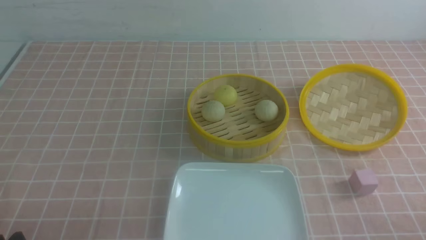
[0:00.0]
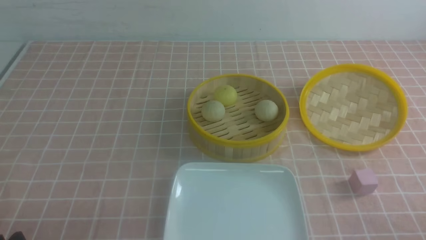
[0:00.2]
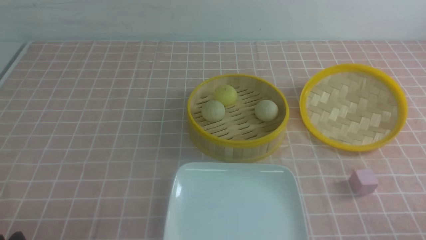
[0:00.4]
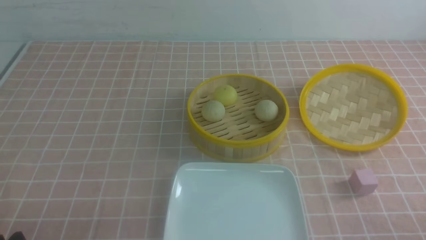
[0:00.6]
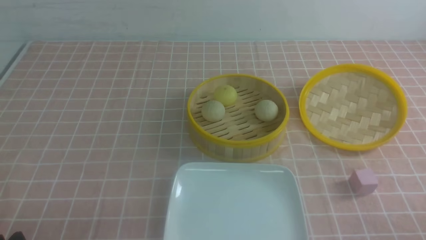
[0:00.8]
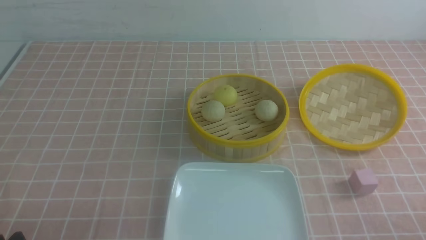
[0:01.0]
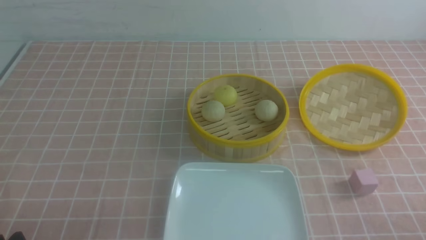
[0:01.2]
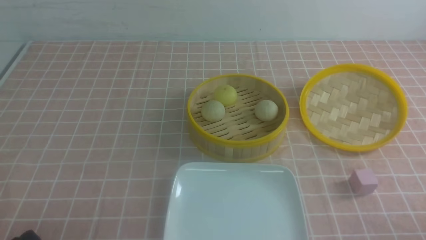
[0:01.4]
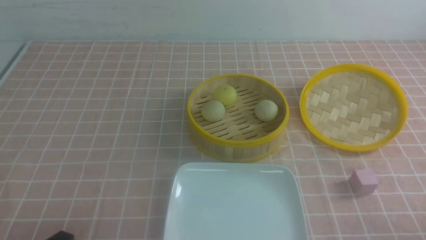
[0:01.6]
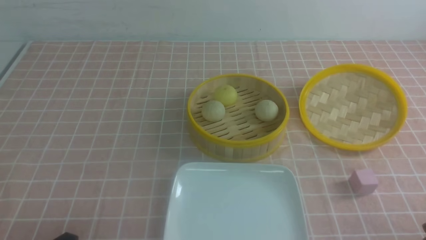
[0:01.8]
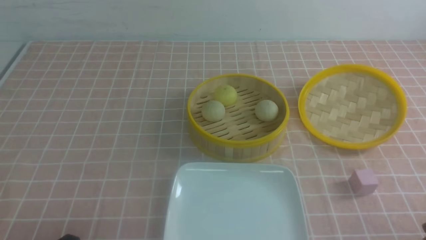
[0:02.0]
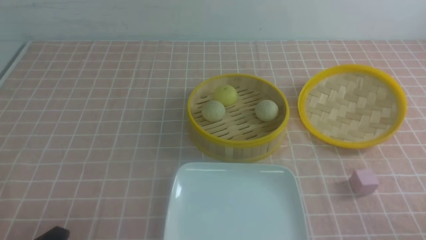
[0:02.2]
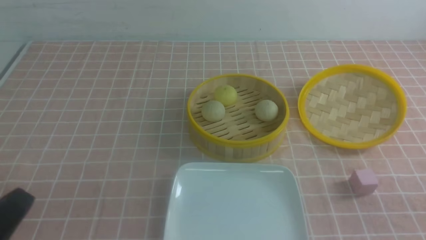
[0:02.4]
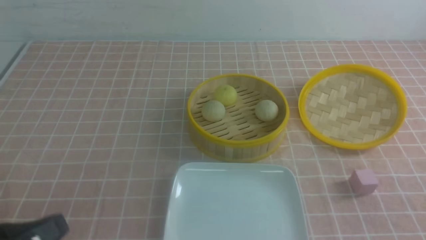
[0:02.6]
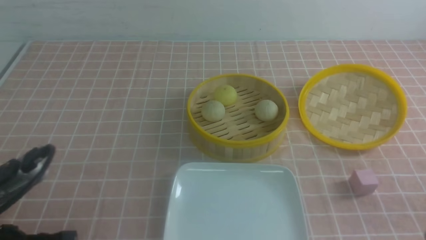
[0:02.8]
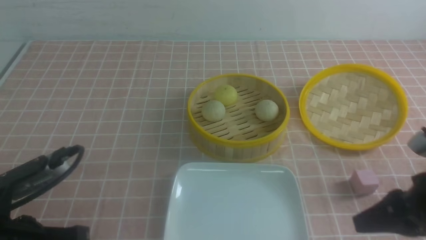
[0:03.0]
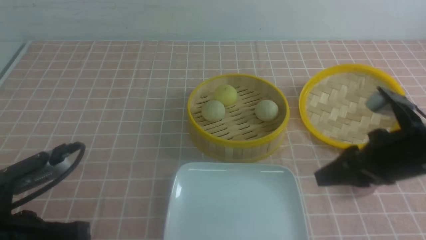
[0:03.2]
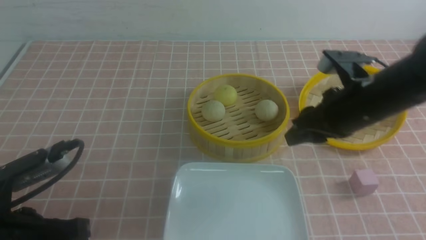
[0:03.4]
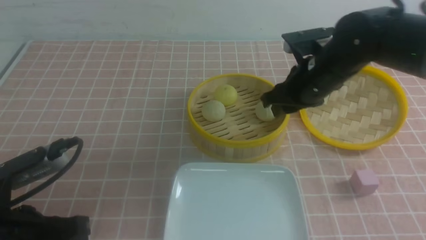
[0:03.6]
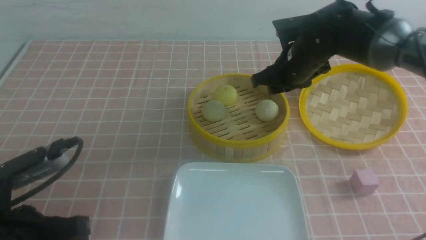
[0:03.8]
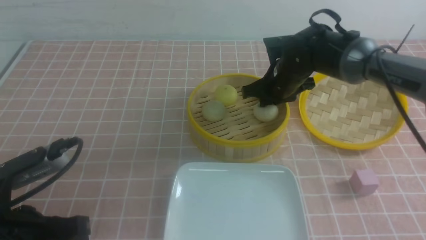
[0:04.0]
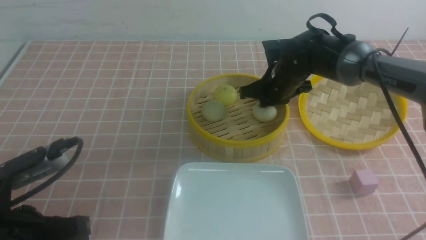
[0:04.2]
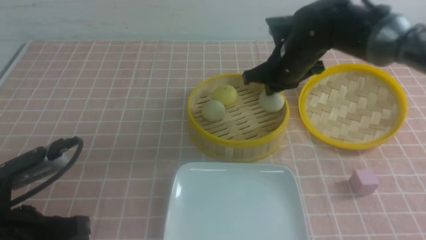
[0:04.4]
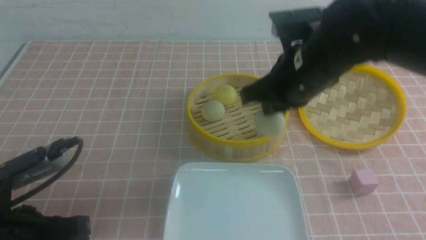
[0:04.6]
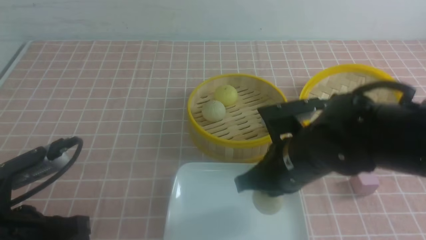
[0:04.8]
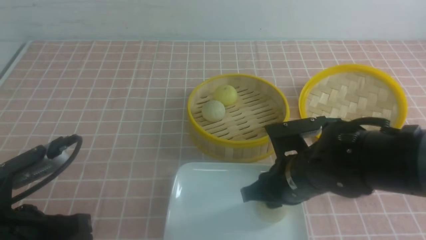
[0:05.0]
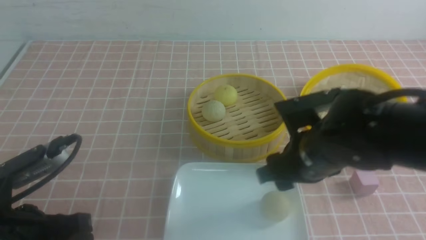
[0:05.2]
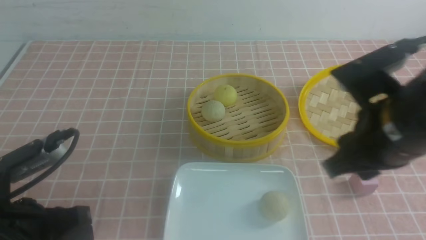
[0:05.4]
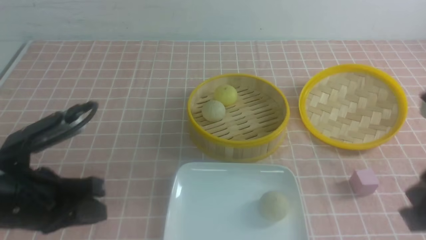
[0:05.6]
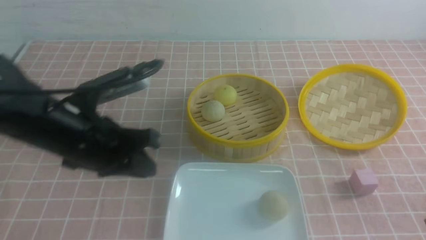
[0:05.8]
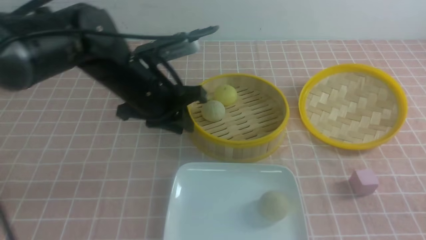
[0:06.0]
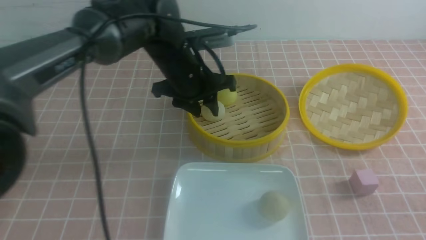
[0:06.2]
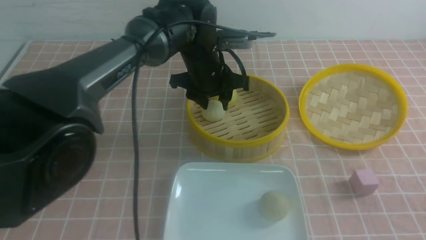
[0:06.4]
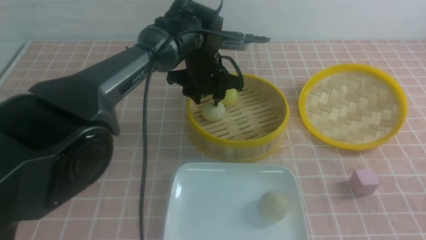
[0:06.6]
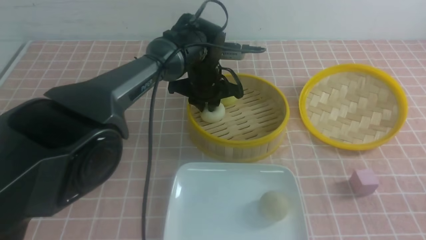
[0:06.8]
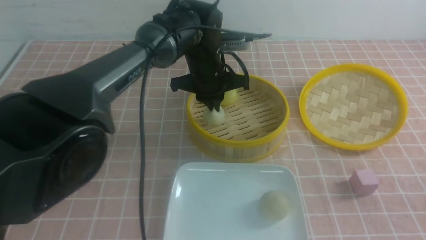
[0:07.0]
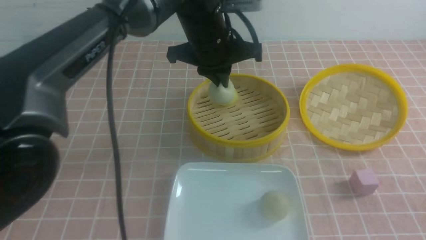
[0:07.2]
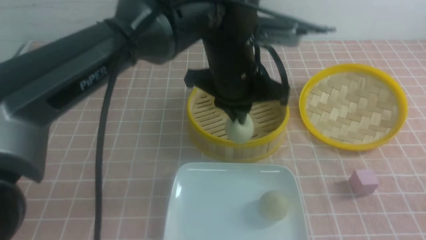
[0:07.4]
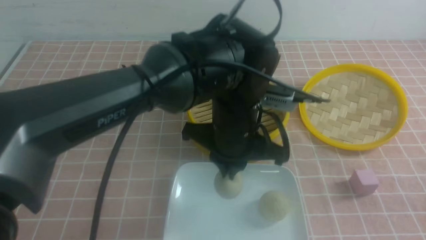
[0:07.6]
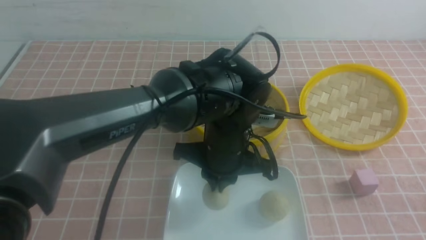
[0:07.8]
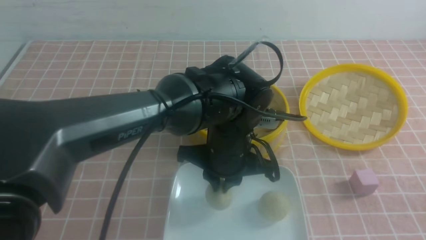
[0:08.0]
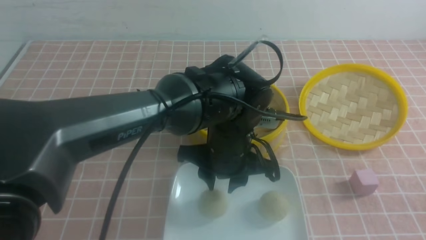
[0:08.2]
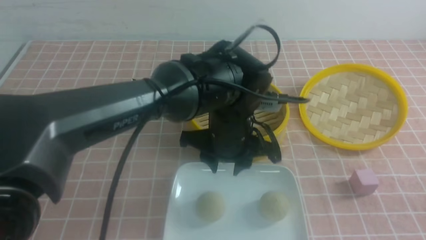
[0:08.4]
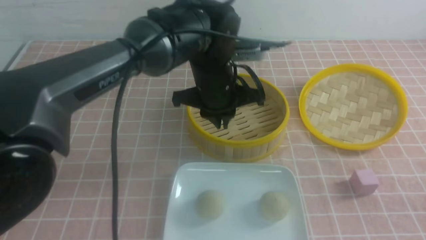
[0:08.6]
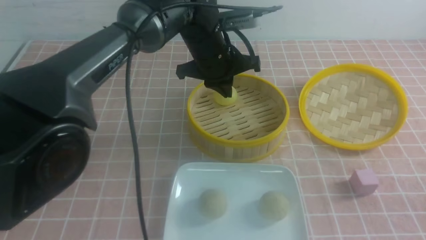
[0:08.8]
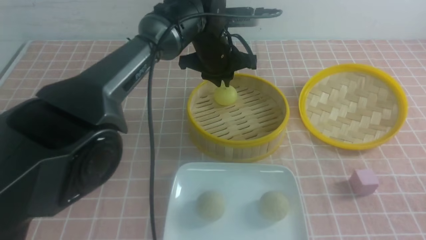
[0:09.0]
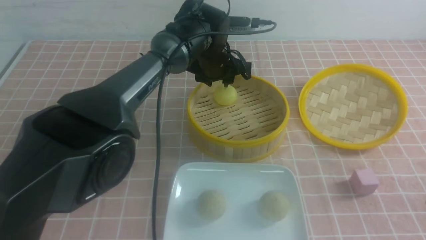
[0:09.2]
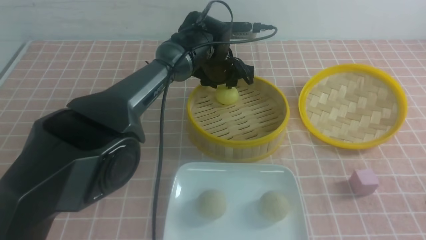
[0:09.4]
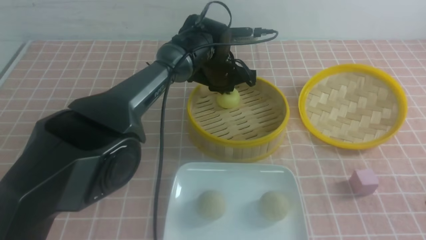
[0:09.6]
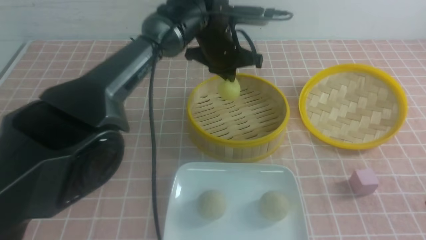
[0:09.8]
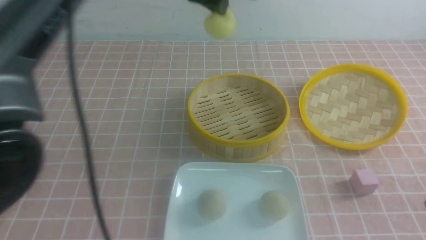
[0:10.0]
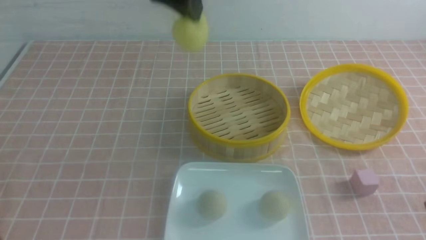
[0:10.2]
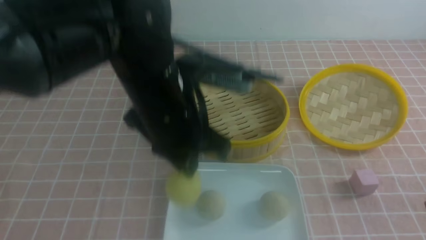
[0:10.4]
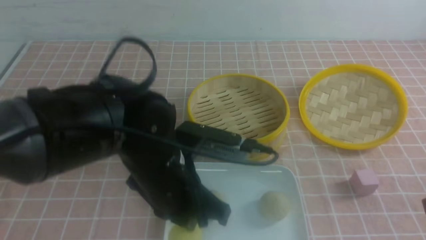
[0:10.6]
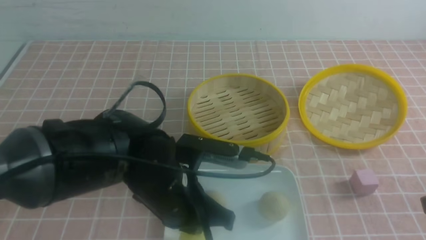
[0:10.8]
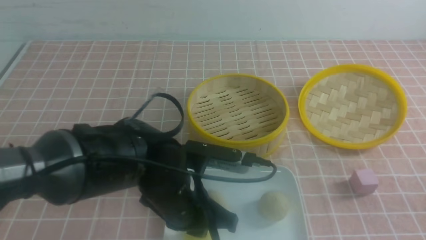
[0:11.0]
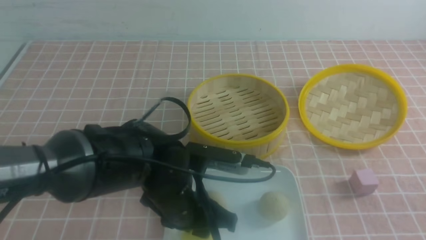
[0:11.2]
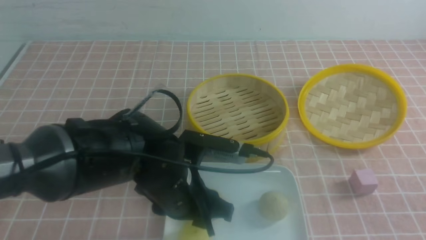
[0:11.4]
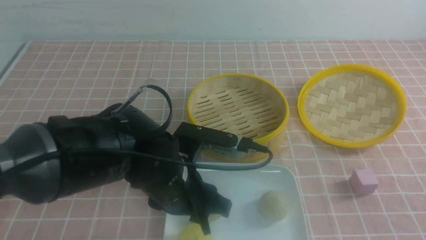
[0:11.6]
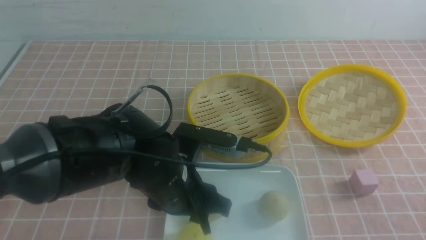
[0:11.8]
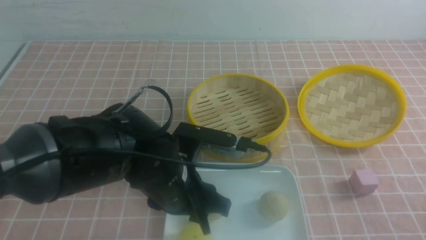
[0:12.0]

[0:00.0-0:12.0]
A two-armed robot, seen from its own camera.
Step, 0:00.0 to 0:04.2: use the right arm to grab the steamed stuffed bun that is closest to it.
Step, 0:04.4 to 0:05.2: use the right arm to put the steamed stuffed bun into the plate.
Step, 0:05.4 to 0:06.8: use the left arm to grab the steamed stuffed bun that is closest to it.
Step, 0:07.0 to 0:08.0: use the left arm to put the steamed stuffed bun into the plate.
Step, 0:08.2 to 0:09.6: use the left arm to grab the steamed stuffed bun that is closest to it.
Step, 0:09.8 to 0:11.4: use the left arm to put the steamed stuffed bun into the plate.
0:01.6 to 0:03.0: The left gripper heads forward and upward, covering some 10 cm, and closes up; the right gripper travels forward and upward by about 15 cm, and closes its fingers.
0:03.0 to 0:04.4: The right gripper is displaced forward and to the left by roughly 25 cm, and opens, then closes again.
0:04.4 to 0:06.0: The right gripper moves backward and to the right, approximately 35 cm, and opens, then closes once more. The left gripper goes approximately 25 cm forward and to the right, and opens its fingers.
0:06.0 to 0:07.6: The left gripper moves to the right, some 10 cm, reaches approximately 10 cm forward, then returns, and closes, while the right gripper opens.
0:07.6 to 0:09.0: The left gripper heads forward, covering roughly 15 cm, and opens.
0:09.0 to 0:10.4: The left gripper goes about 20 cm backward, and closes up.
0:10.4 to 0:12.0: The left gripper is displaced downward by some 10 cm, and opens. Meanwhile the right gripper travels backward by about 5 cm, and closes up.

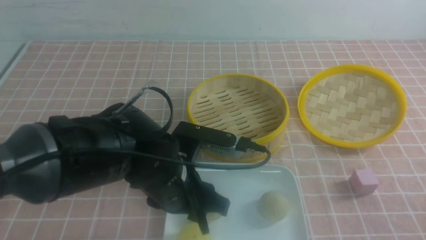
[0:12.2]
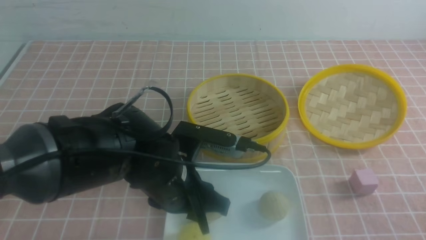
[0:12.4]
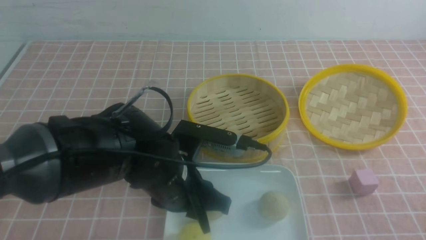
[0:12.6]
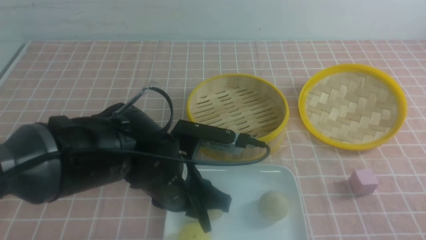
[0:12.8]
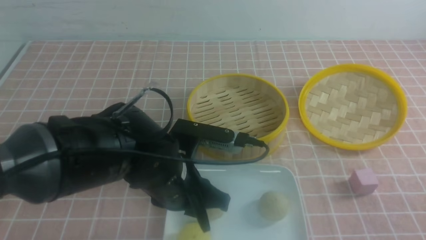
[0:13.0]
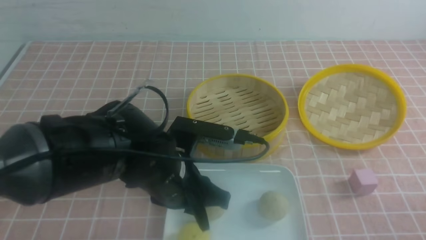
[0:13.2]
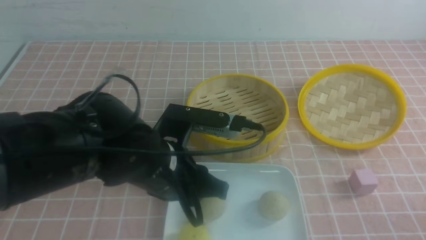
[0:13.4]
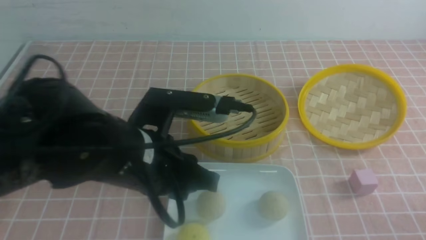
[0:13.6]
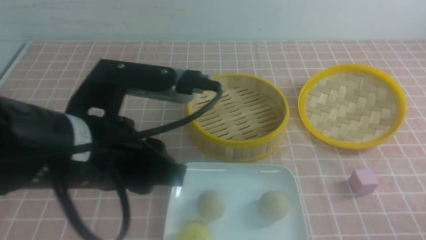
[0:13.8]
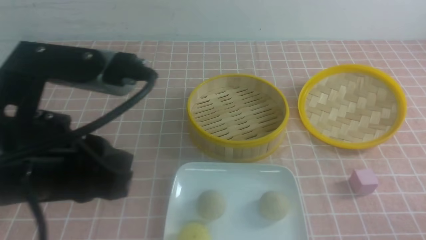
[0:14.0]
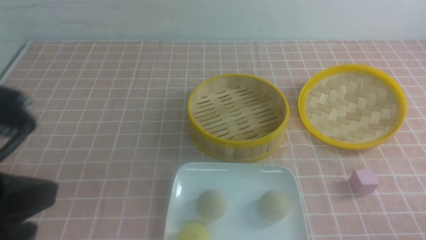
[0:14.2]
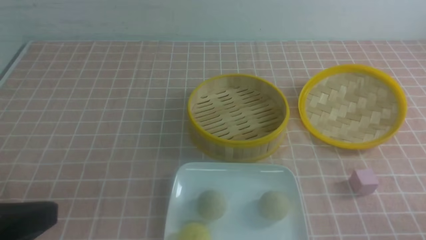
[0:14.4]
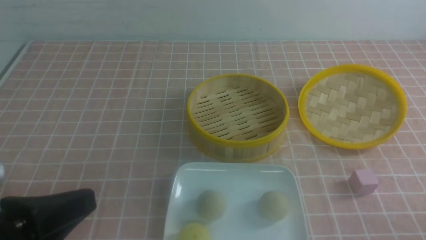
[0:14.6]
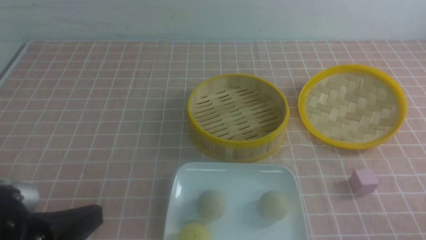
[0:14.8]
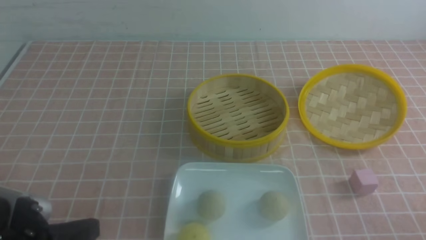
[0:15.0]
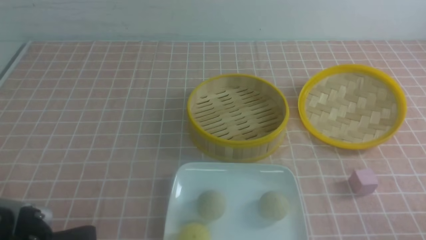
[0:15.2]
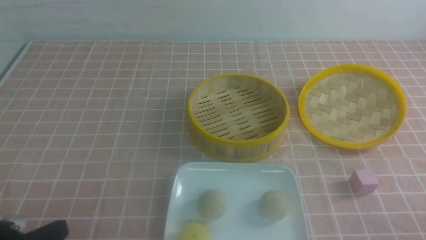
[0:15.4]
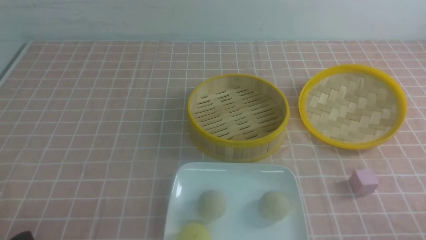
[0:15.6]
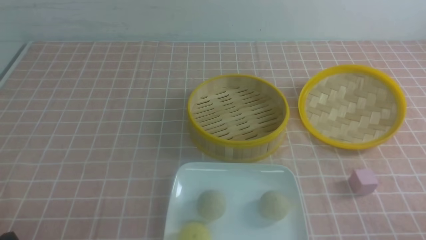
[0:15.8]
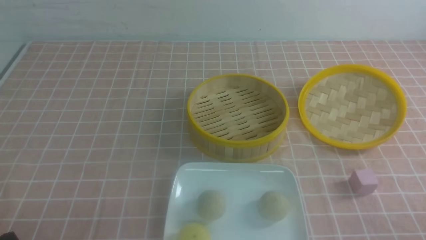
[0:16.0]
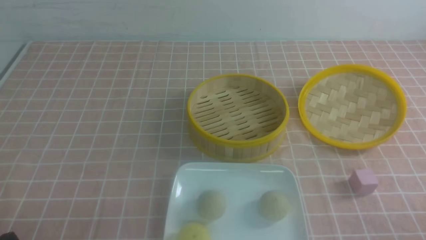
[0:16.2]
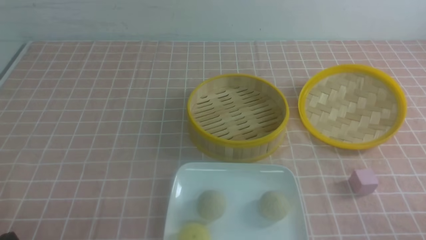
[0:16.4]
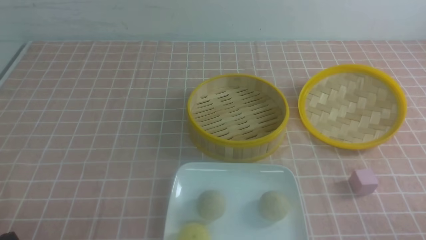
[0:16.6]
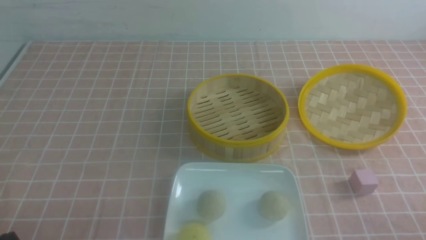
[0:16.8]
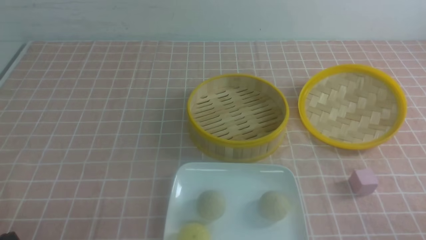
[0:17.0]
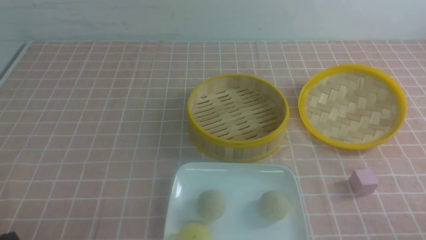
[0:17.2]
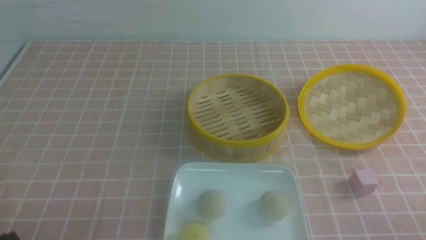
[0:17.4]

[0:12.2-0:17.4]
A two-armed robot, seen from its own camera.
0:12.2 to 0:14.0: The right gripper travels downward by roughly 10 cm, while the left gripper moves upward, to the left and backward, about 20 cm, and closes its fingers.
0:14.0 to 0:15.6: The left gripper heads downward and to the left, covering about 20 cm.
